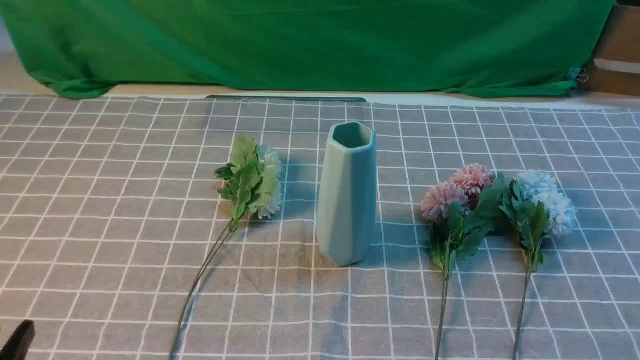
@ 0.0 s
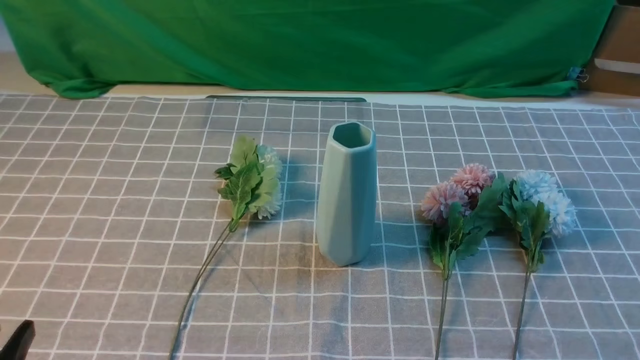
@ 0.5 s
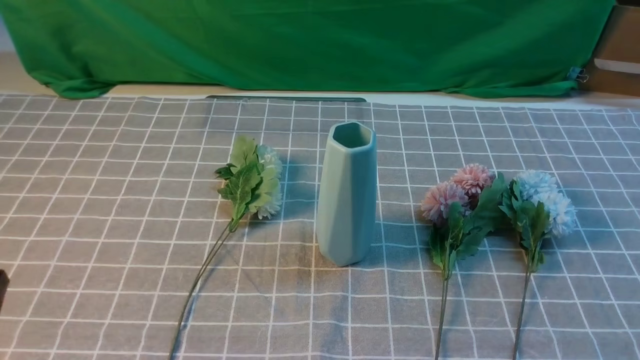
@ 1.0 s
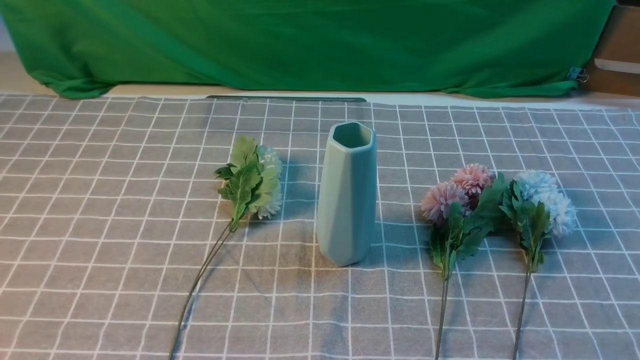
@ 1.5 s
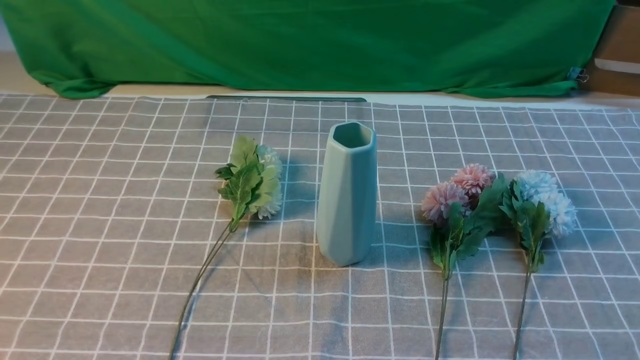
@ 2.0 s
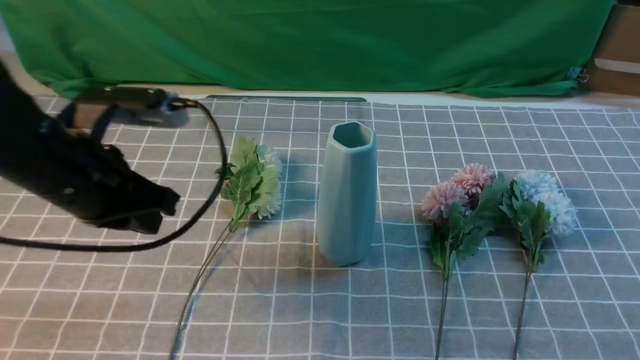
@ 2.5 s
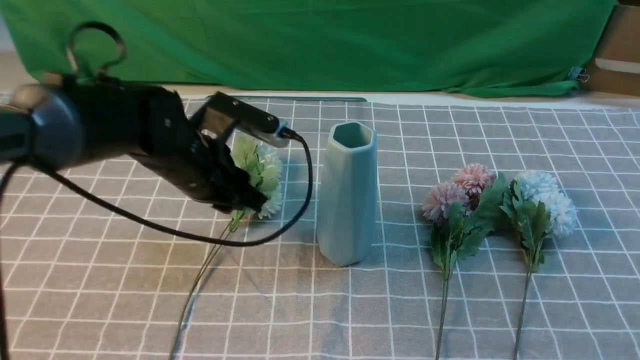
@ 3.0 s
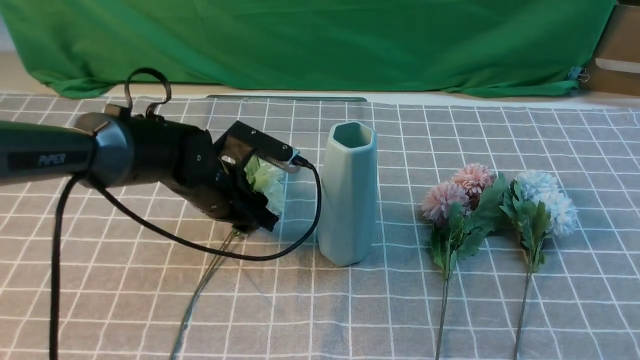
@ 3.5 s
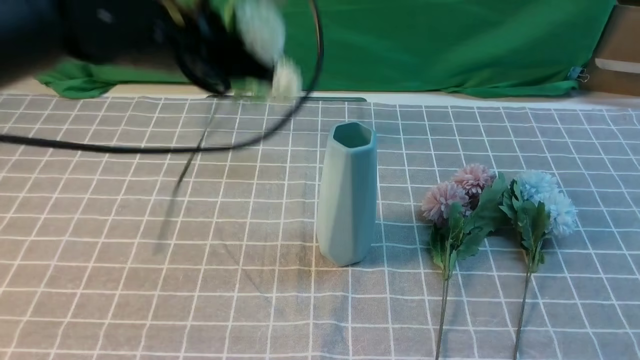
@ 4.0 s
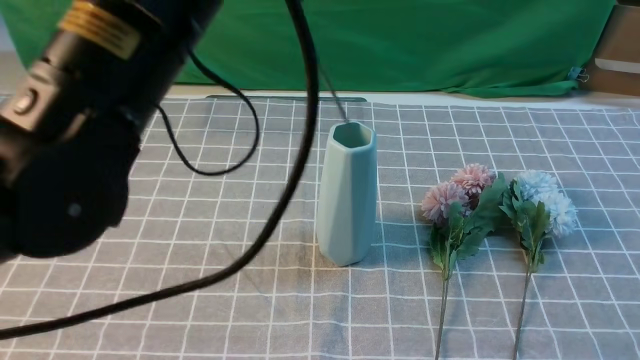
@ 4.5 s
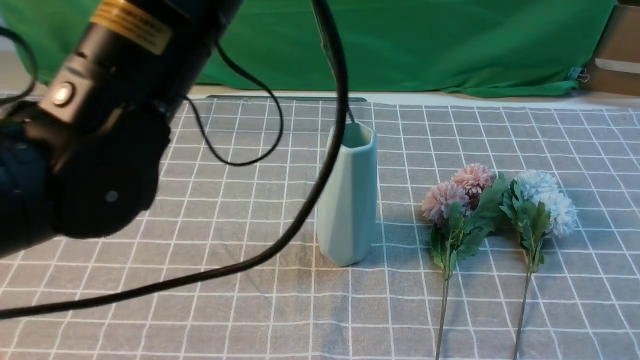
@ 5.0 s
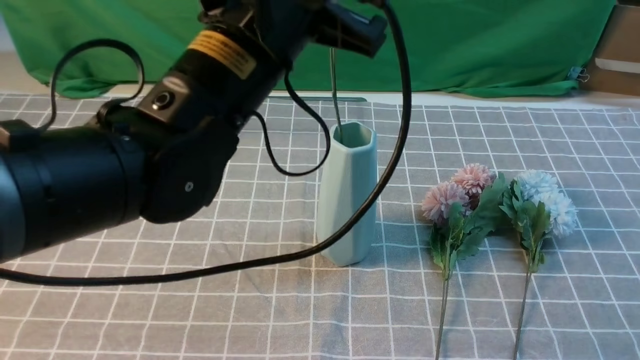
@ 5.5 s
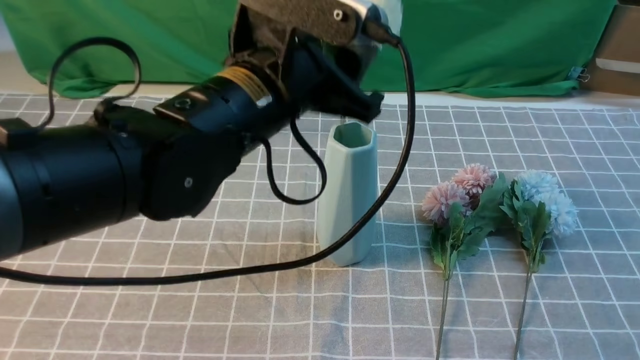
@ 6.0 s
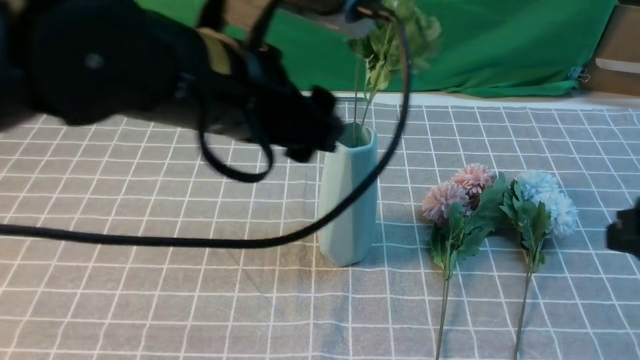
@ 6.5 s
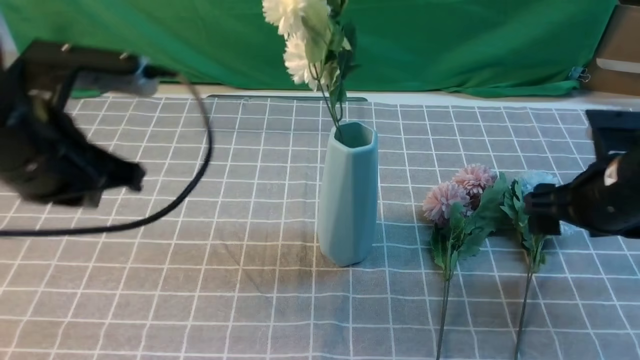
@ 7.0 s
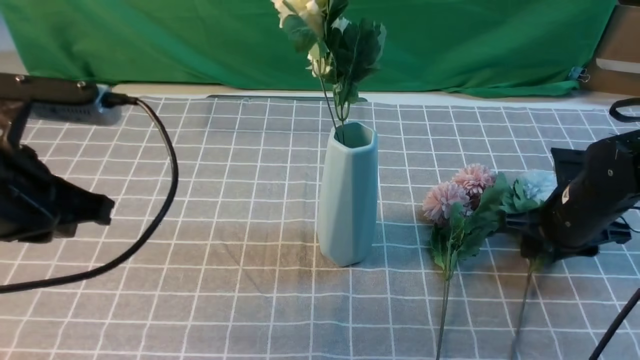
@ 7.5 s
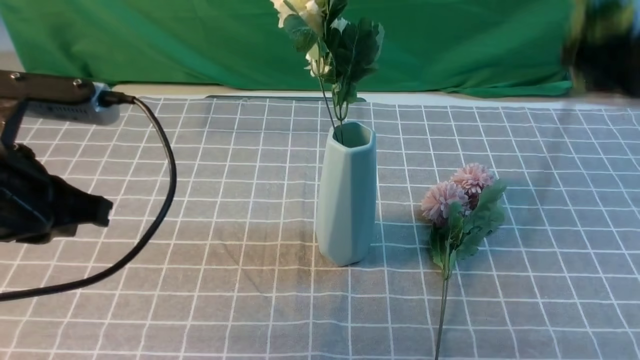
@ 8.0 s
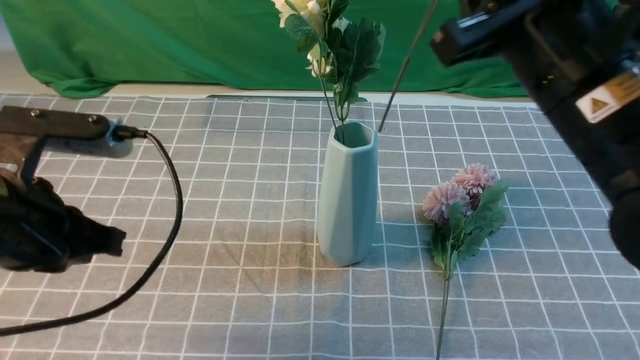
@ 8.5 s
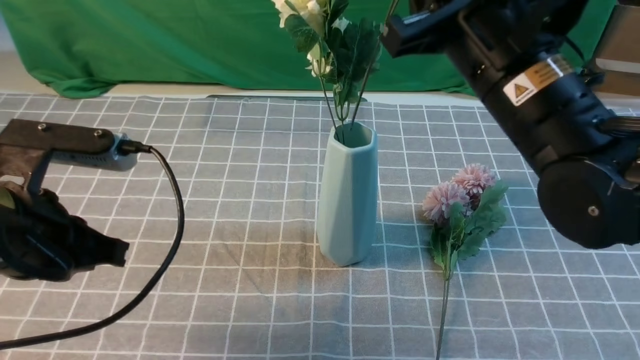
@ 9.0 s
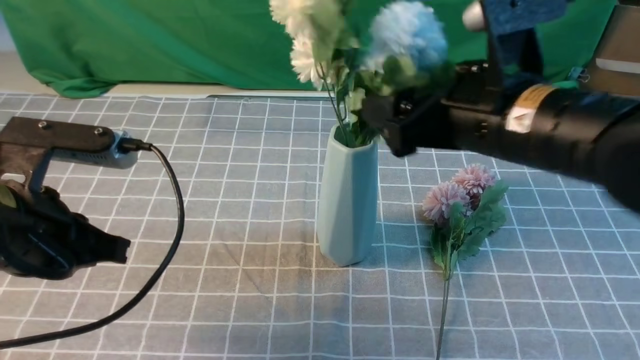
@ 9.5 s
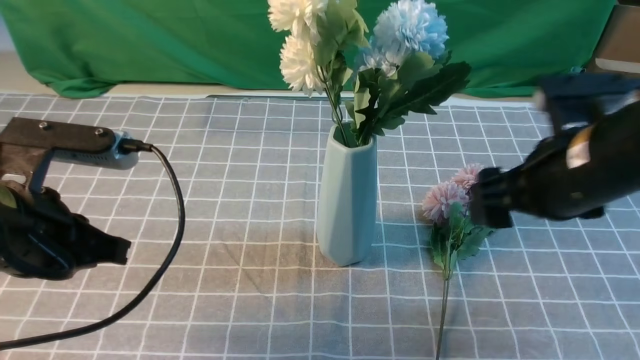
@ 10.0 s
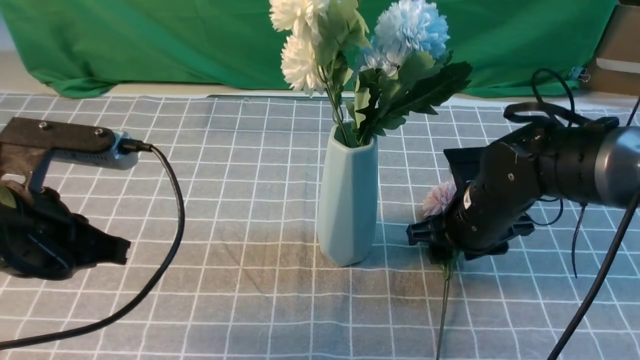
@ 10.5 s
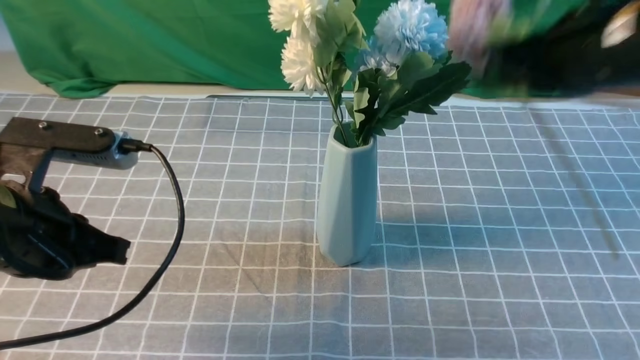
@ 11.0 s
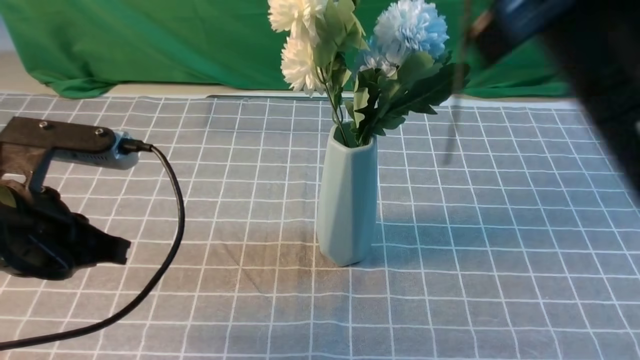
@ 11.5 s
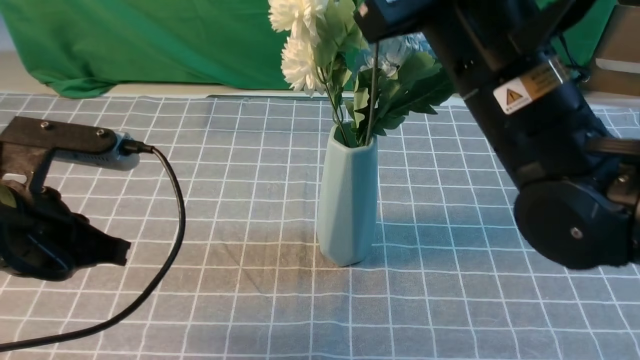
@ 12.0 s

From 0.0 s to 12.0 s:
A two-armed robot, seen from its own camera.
Task of the whole recording: insert the flowers into the vase on the table with the grey tablecloth.
Step, from 0.0 s to 3.5 s: use the left arm to grab a bunch of fresh flowers.
Step, from 4.0 s to 6.5 s: use the left arm to insert the flowers into the vase.
Step, from 7.0 s to 7.5 s: use the right arm to grab a bunch of fresh flowers.
Step, from 8.0 s to 9.5 s: use the right arm to insert the flowers into the vase.
Step, from 10.0 s to 10.5 s: use the right arm to grab a bunch of fresh flowers.
From 2.0 s to 4.0 s: The right gripper goes about 15 cm upward and forward, while the left gripper travels forward and to the right by some 30 cm, and opens, then closes again.
From 4.0 s to 6.0 s: The left gripper shifts roughly 5 cm to the right, and opens up.
From 6.0 s to 8.0 s: The left gripper moves to the left and backward, some 20 cm, and closes, while the right gripper travels forward and to the left by approximately 15 cm, and opens and closes again.
From 8.0 s to 10.0 s: The right gripper goes roughly 10 cm downward, and opens.
From 10.0 s to 12.0 s: The right gripper moves upward and to the left, about 10 cm, and closes its fingers.

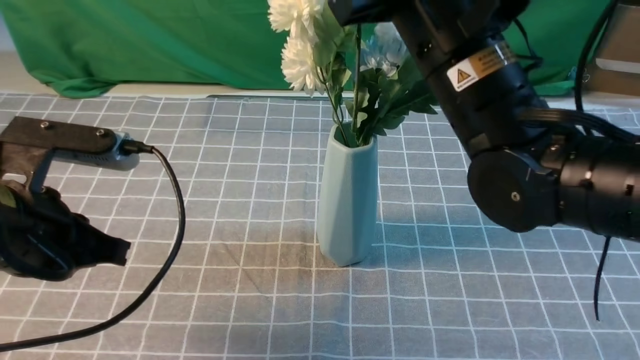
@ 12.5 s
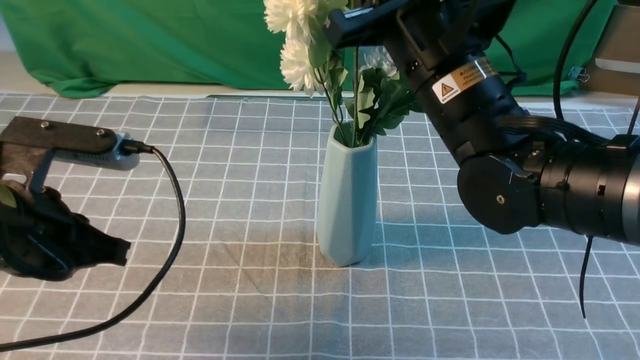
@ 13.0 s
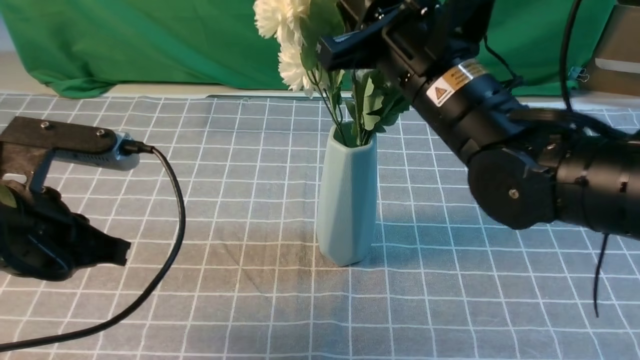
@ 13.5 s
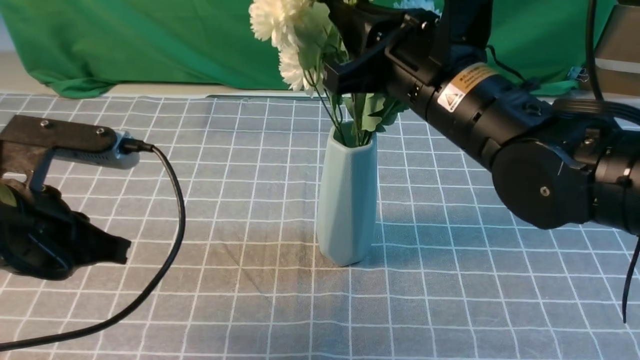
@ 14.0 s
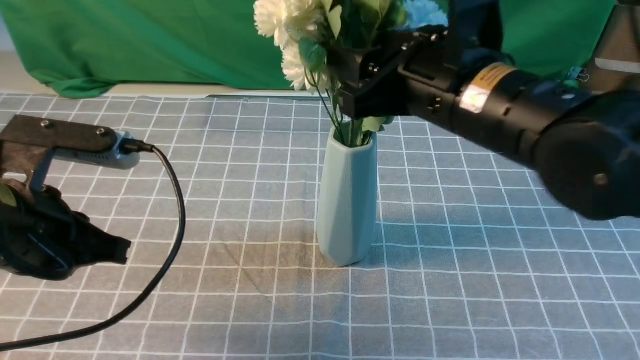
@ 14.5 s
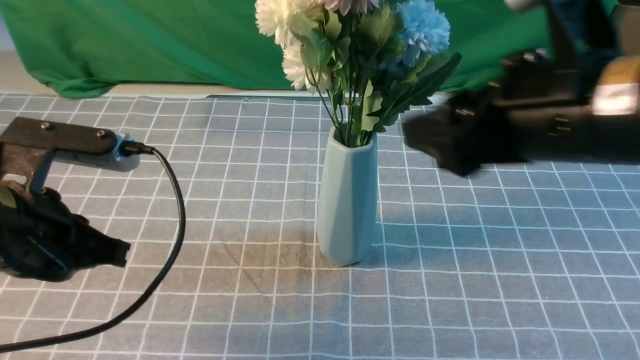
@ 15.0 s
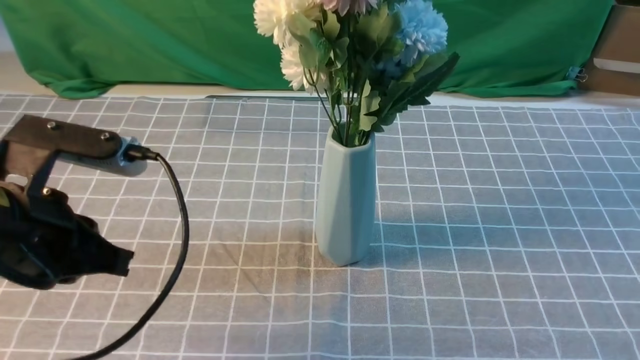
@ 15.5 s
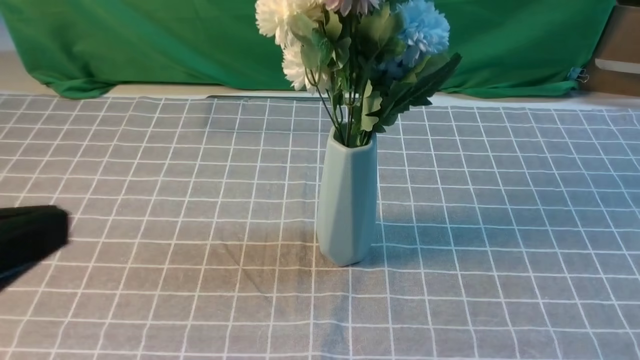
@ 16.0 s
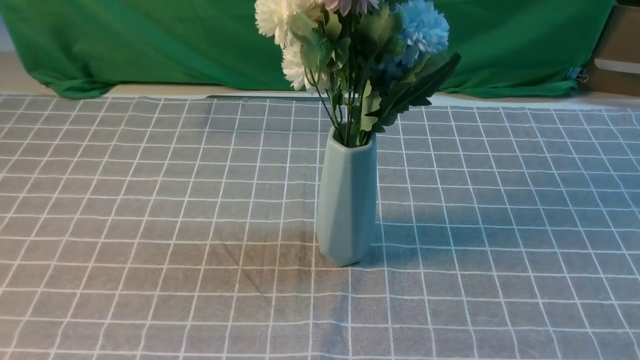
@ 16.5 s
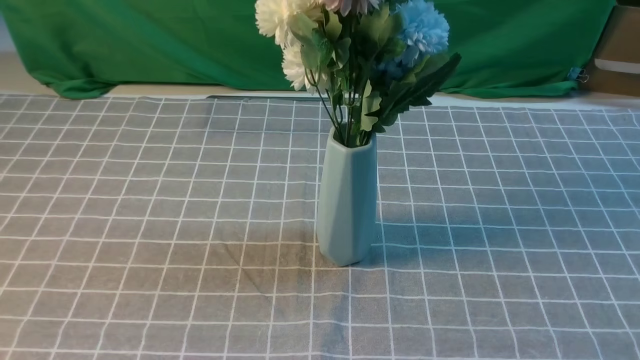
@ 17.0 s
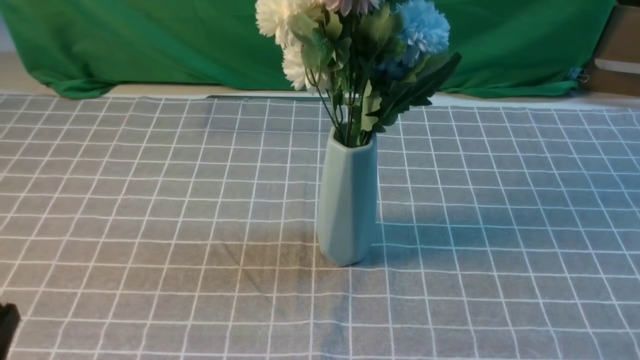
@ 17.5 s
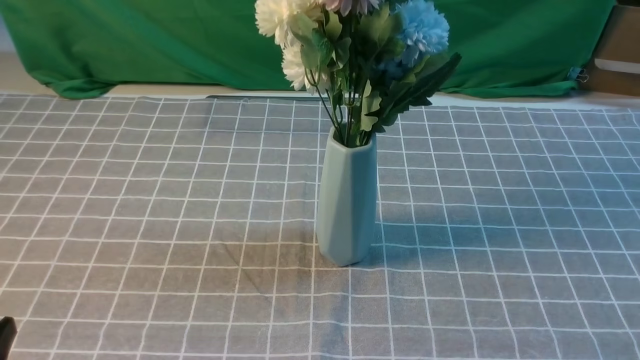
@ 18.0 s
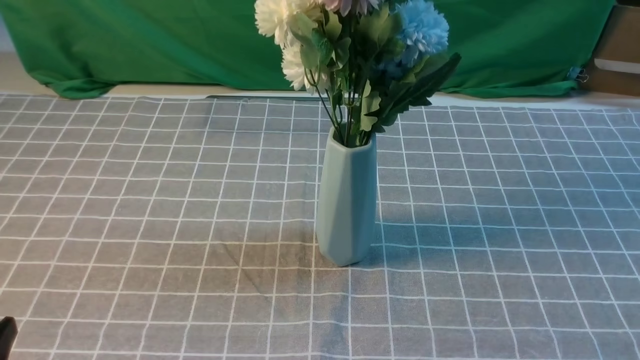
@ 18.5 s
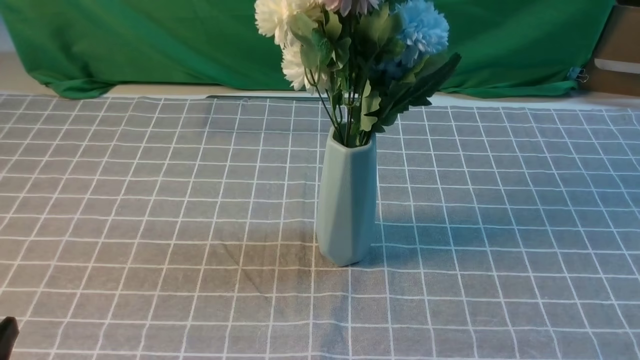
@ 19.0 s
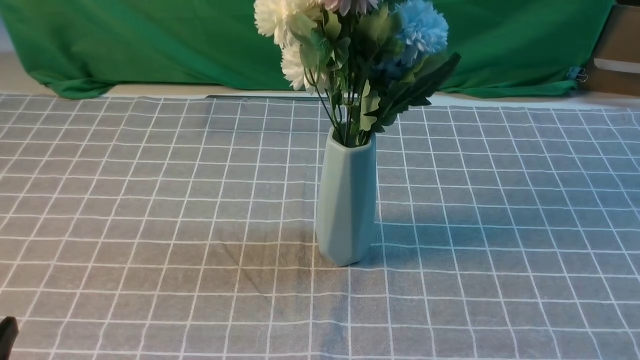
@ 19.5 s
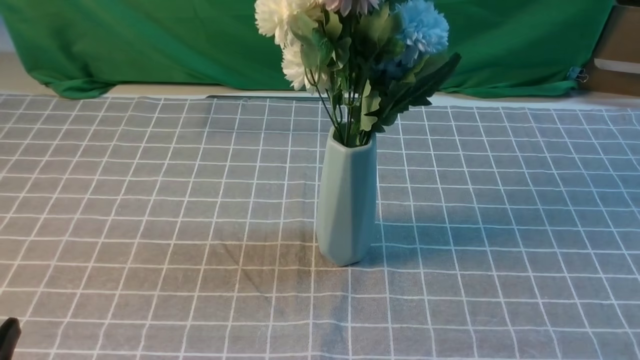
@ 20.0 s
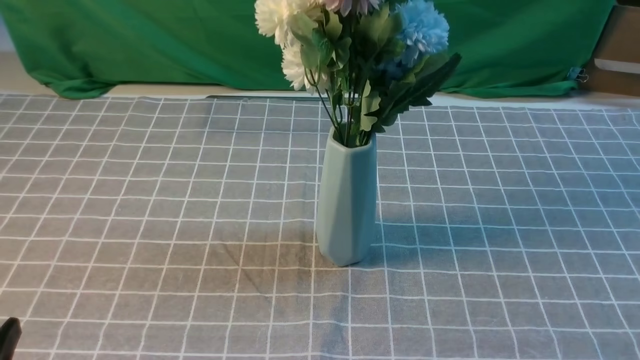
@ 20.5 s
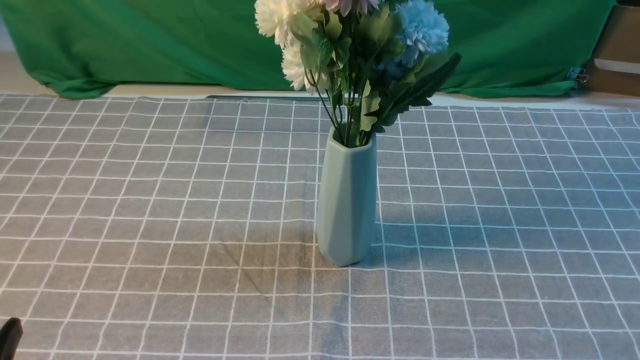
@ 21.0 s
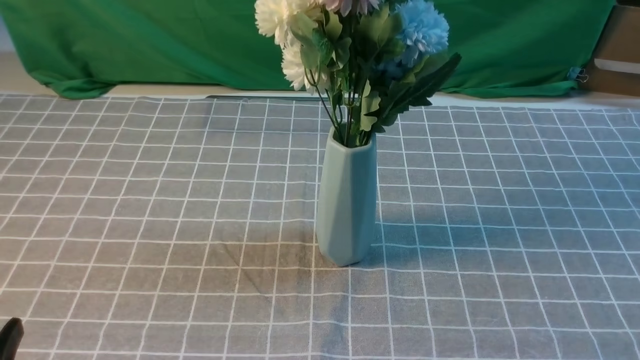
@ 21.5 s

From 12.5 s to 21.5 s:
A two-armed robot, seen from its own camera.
Task of the whole recording: insert the flowers into the vase on the table with the grey tablecloth.
Step, from 12.5 s to 14.5 s: use the right arm to insert the flowers into the vase.
From 12.5 s to 14.5 s: The right gripper opens its fingers.
From 14.5 s to 17.0 s: The left gripper goes about 20 cm backward. The right gripper shifts some 30 cm backward and to the right, and closes up.
